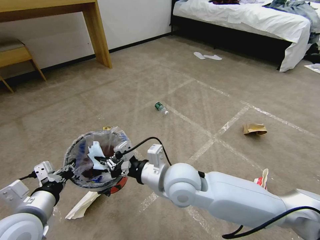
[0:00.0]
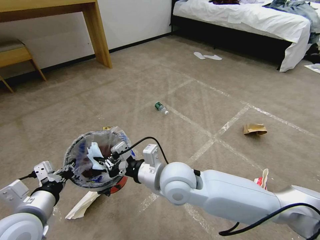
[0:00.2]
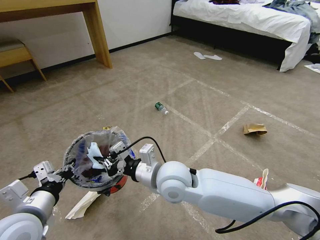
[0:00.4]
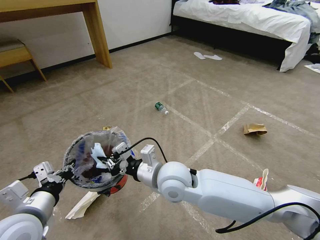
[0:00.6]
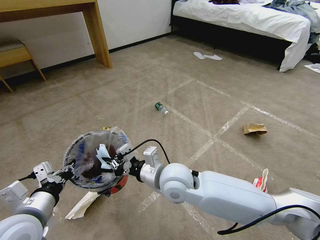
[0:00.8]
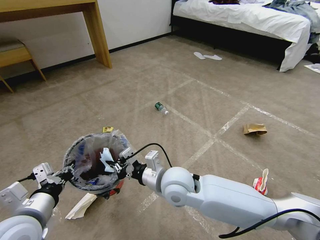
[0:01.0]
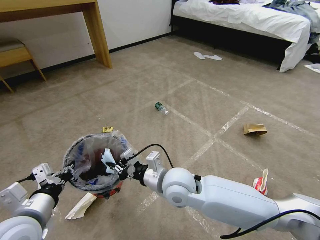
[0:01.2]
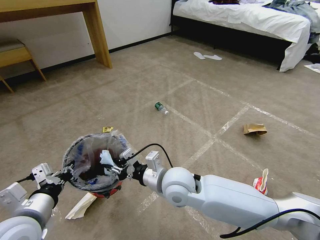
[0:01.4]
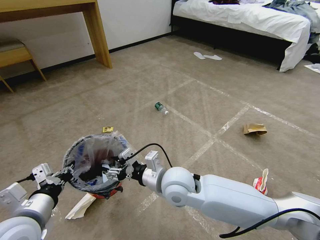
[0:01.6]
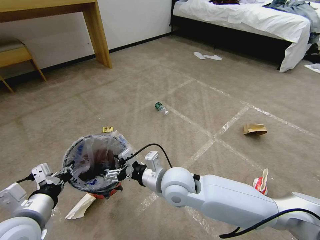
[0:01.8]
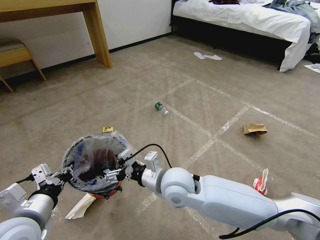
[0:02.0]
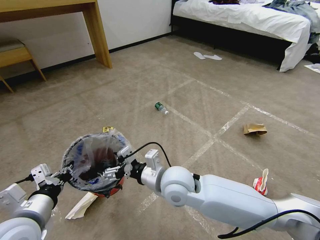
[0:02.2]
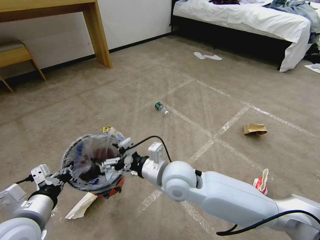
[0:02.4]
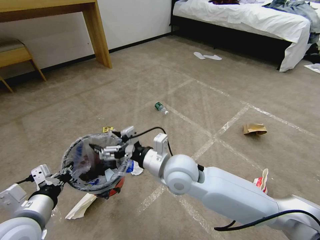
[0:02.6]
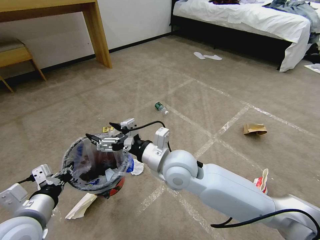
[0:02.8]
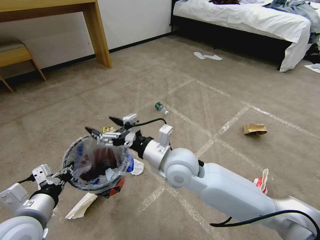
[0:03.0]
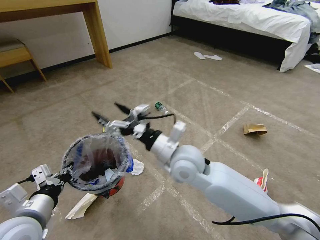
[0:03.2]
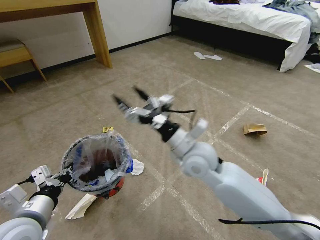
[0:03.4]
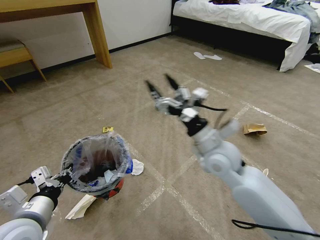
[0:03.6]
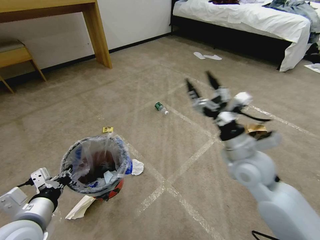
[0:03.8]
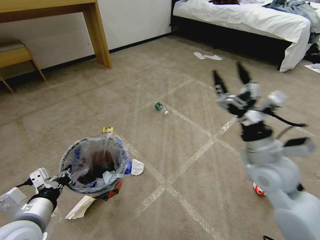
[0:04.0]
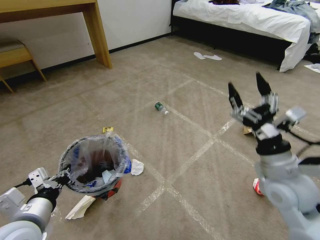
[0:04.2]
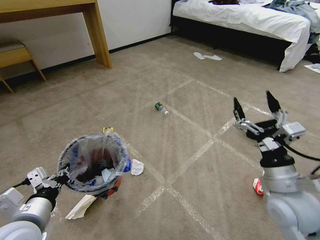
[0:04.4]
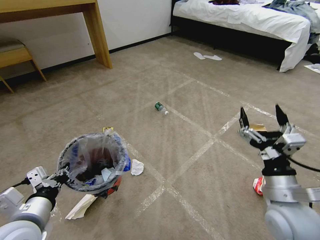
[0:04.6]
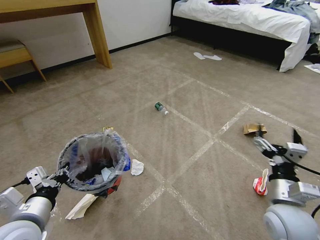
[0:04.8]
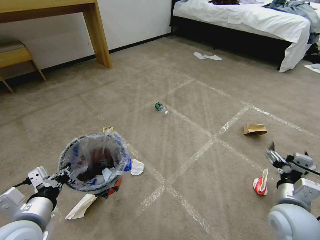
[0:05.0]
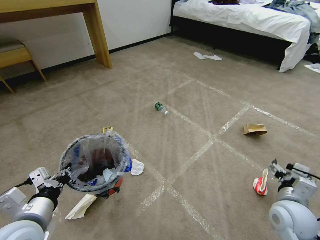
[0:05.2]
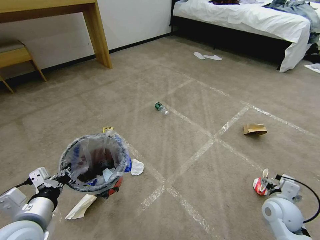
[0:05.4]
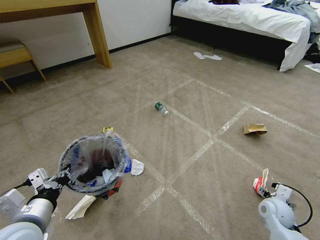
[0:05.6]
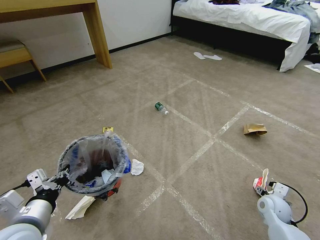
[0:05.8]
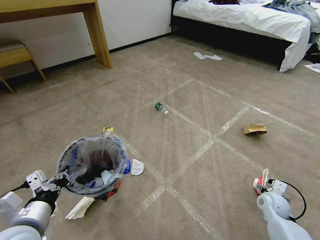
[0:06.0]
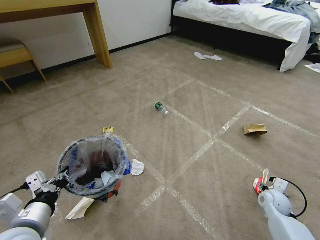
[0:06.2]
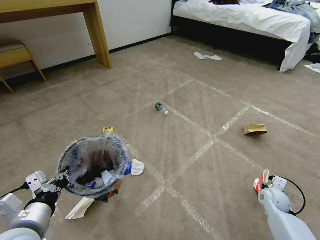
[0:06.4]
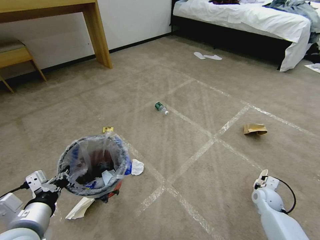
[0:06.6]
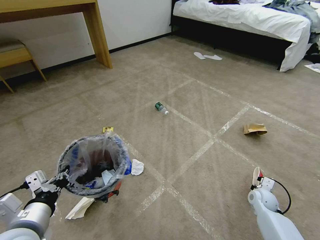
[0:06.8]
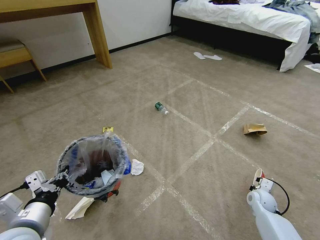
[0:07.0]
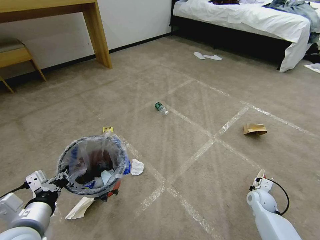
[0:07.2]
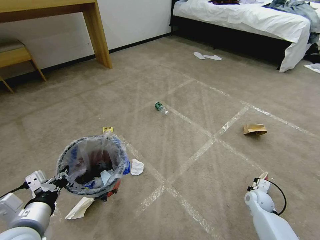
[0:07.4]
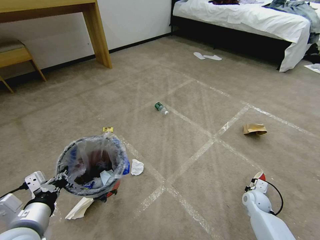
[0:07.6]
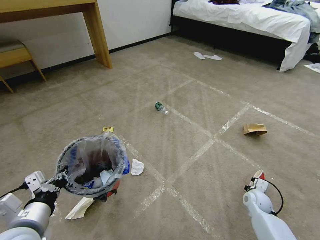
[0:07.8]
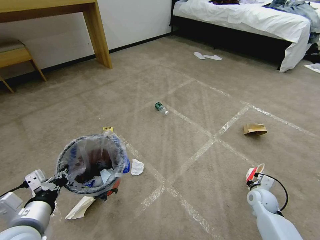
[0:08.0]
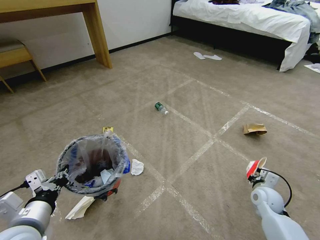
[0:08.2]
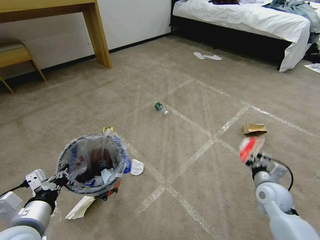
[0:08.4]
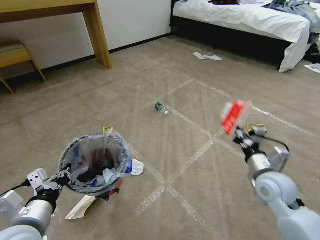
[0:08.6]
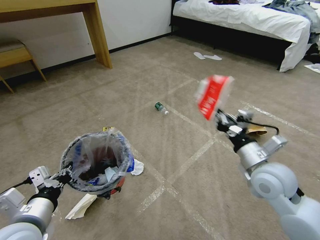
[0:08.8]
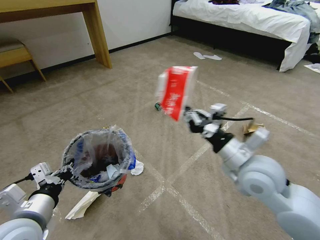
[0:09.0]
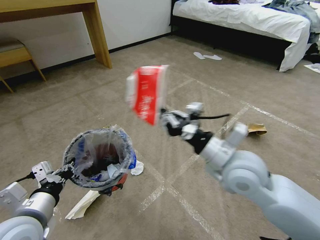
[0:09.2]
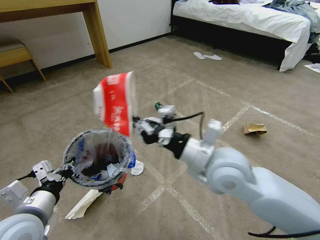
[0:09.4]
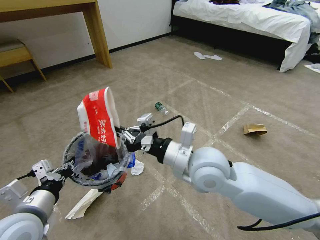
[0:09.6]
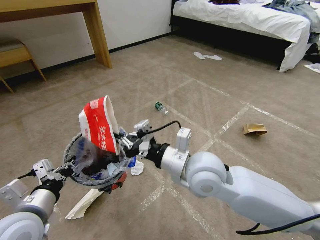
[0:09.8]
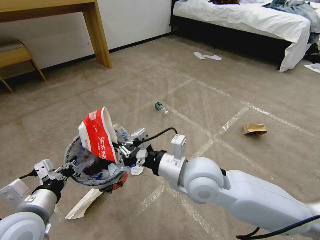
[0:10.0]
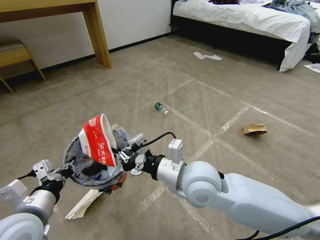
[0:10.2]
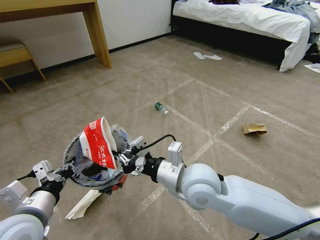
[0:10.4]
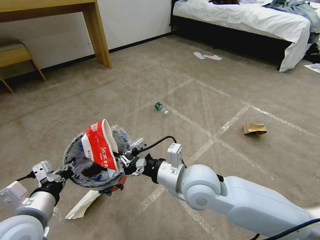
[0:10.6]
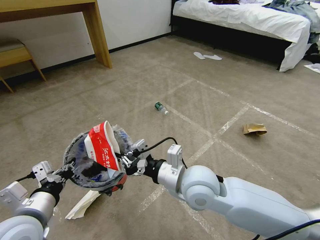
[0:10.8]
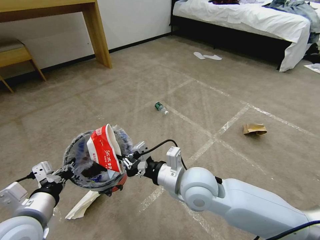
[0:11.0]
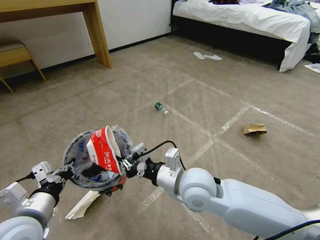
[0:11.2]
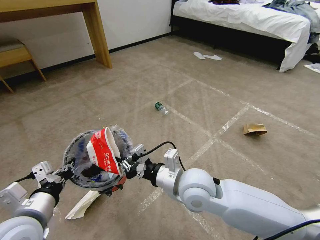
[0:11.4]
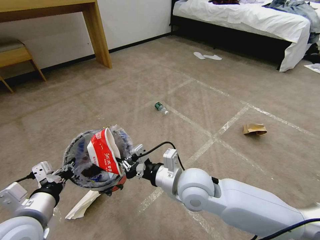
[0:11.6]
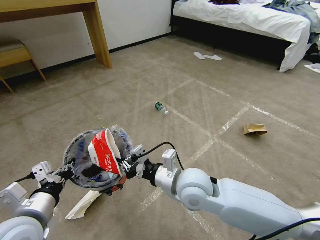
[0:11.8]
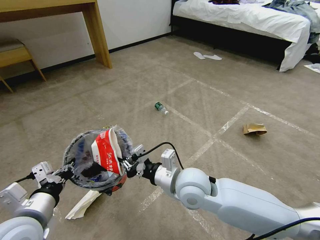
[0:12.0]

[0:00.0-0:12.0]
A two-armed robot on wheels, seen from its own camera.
Task of the whole recording: Pick up the trash bin and place the garbage on the floor into it.
0:00.0 to 0:01.6: The right gripper opens its fingers.
0:01.6 to 0:03.0: The right gripper moves upward, approximately 5 cm, and opens its fingers.
0:03.0 to 0:04.4: The right gripper shifts about 25 cm to the right and backward.
0:04.4 to 0:06.0: The right gripper is displaced downward and to the right by roughly 25 cm.
0:06.0 to 0:07.6: The right gripper is displaced downward by roughly 5 cm, and closes up.
0:07.6 to 0:09.0: The right gripper travels upward and to the left by roughly 35 cm.
0:09.0 to 0:10.4: The right gripper is displaced to the left by roughly 15 cm.
0:10.4 to 0:12.0: The grippers move only a little.

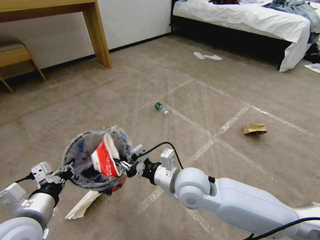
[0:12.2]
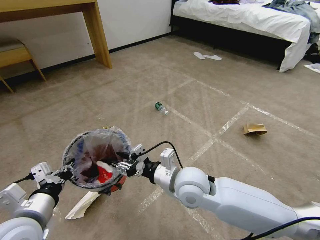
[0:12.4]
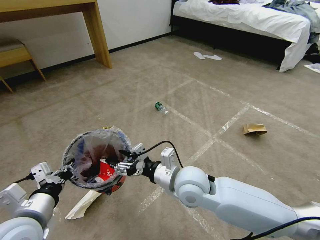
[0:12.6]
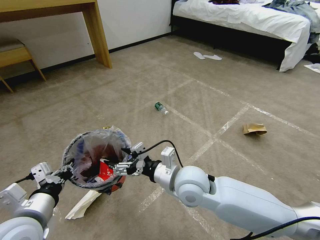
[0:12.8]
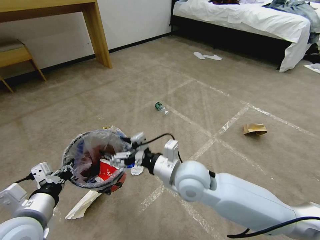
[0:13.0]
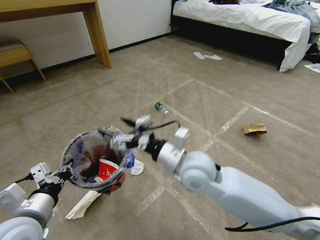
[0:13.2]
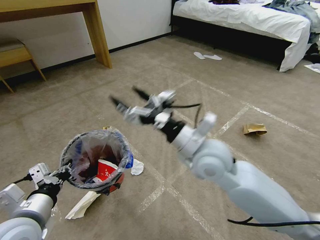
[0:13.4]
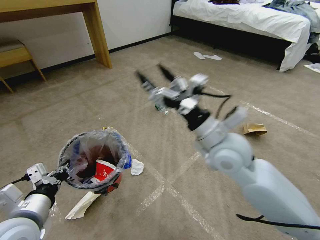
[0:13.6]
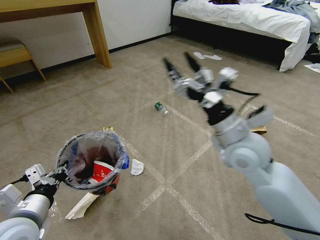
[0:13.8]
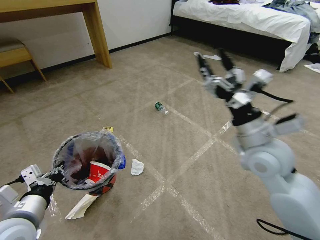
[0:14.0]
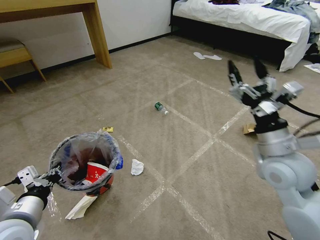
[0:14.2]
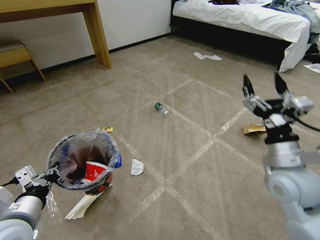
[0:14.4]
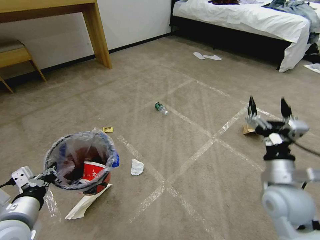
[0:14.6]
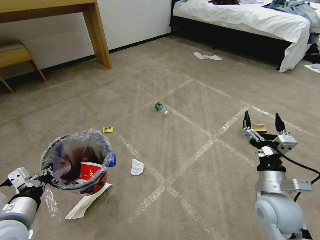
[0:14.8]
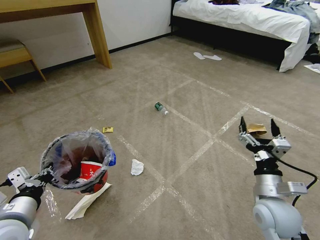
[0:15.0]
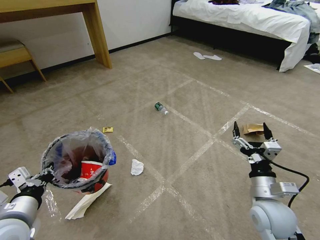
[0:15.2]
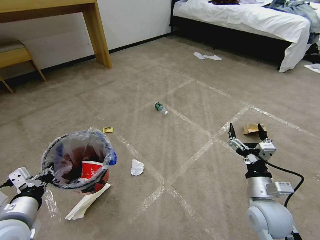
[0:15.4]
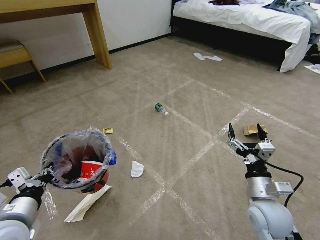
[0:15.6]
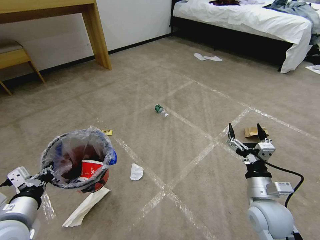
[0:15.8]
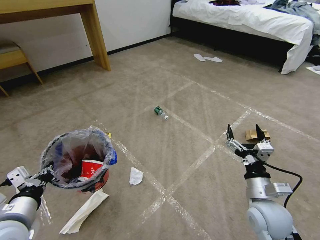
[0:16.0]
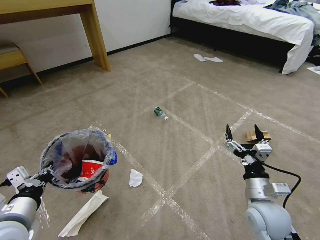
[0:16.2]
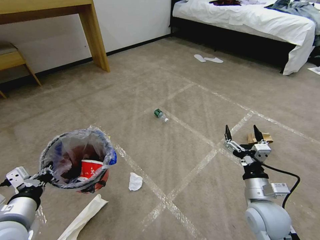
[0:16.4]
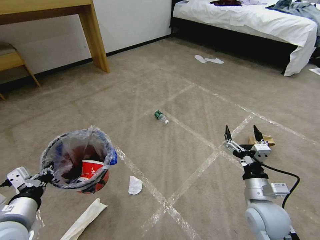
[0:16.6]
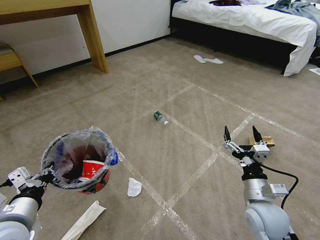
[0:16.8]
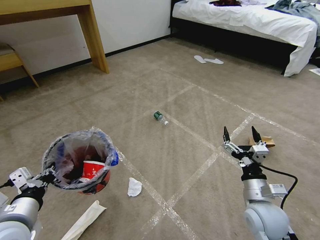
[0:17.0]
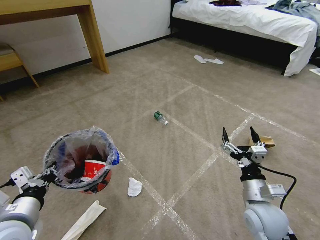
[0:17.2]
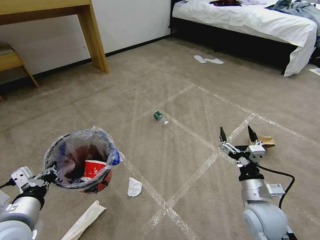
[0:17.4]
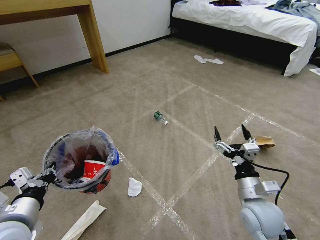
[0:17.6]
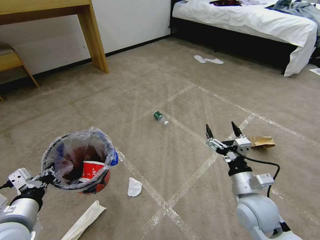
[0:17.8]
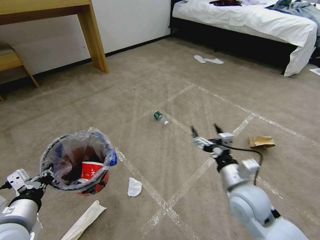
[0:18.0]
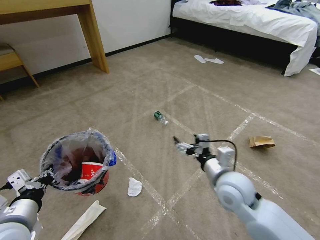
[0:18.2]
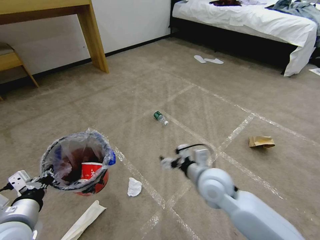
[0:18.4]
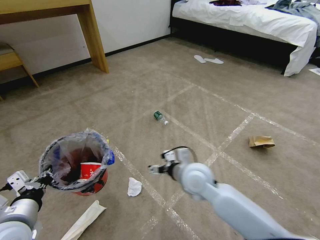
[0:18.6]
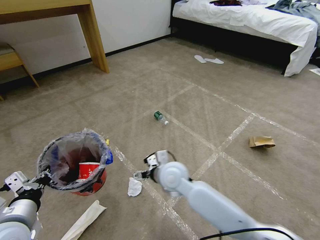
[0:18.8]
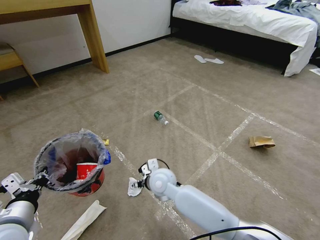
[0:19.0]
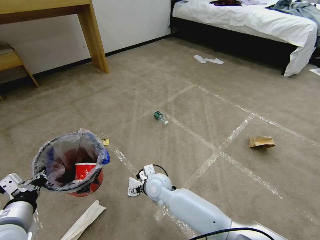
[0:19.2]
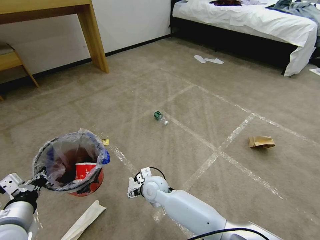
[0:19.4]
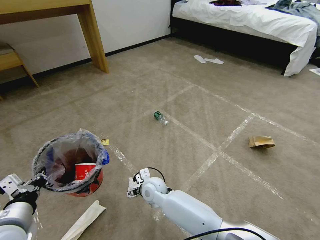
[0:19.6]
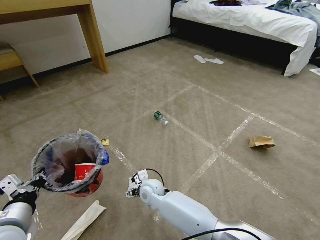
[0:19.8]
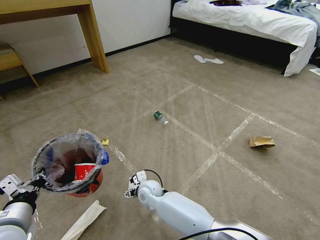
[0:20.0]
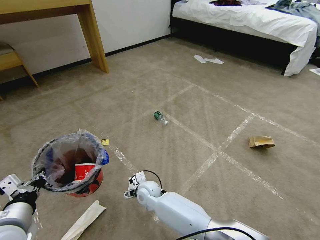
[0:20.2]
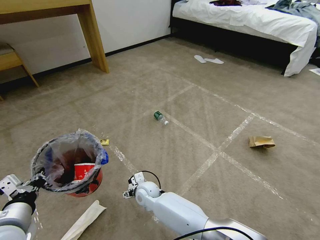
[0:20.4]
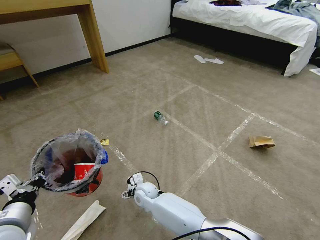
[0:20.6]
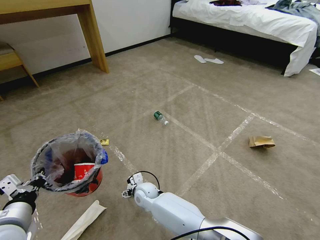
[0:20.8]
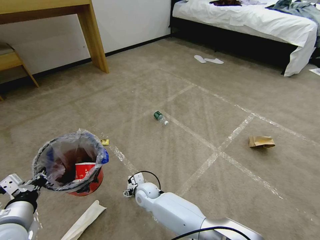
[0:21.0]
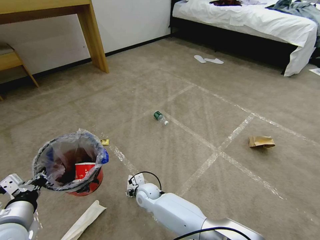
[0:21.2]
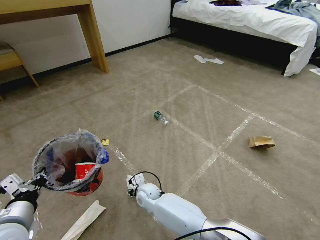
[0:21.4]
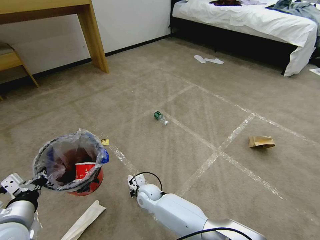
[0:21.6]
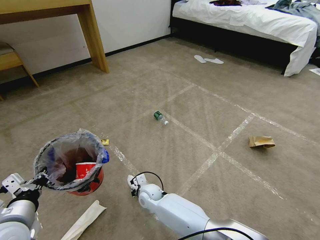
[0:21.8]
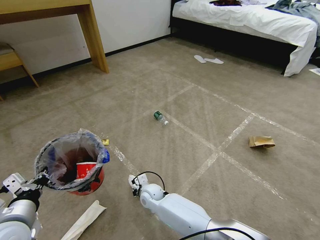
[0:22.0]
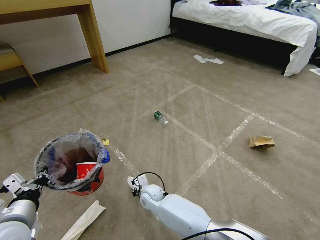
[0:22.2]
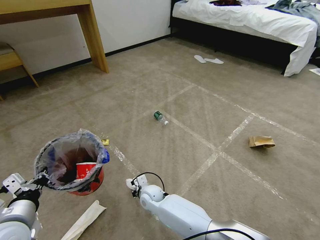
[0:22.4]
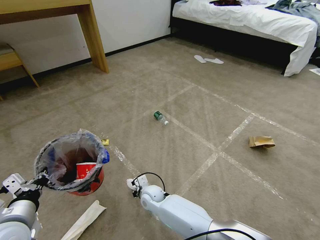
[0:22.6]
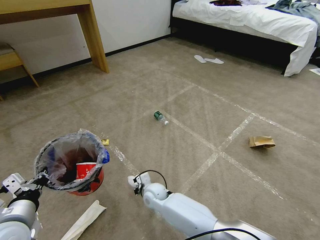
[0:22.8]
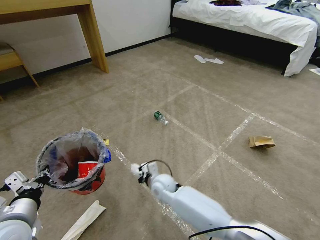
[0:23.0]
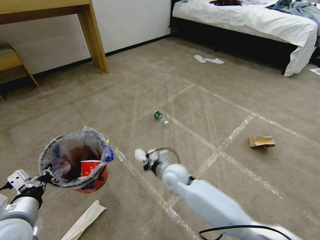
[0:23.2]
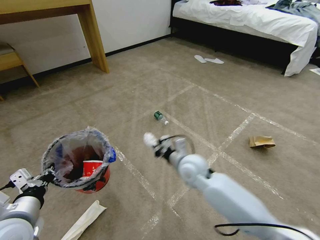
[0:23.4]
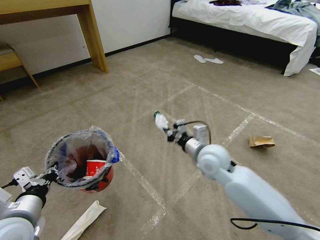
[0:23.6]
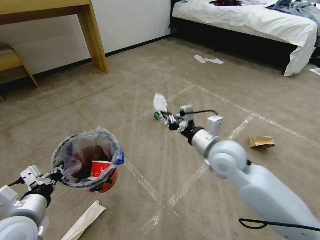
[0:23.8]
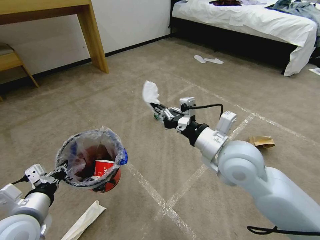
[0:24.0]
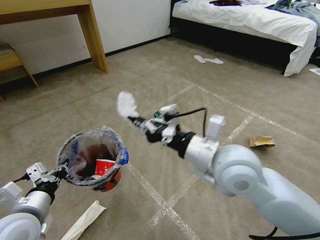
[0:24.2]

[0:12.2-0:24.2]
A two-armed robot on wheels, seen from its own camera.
Task of the whole recording: Pick up the trash bin and place the garbage on the floor into it.
0:12.2 to 0:13.8: The right gripper heads to the right and upward, covering some 15 cm, and opens its fingers.
0:13.8 to 0:15.2: The right gripper moves downward, backward and to the right, roughly 20 cm.
0:15.2 to 0:16.6: There are only small adjustments of the grippers.
0:16.6 to 0:18.2: The right gripper travels to the left, forward and upward by some 10 cm.
0:18.2 to 0:19.8: The right gripper shifts approximately 30 cm to the left and downward.
0:19.8 to 0:21.2: The right gripper travels downward by some 5 cm.
0:21.2 to 0:22.6: The right gripper closes up.
0:22.6 to 0:24.2: The right gripper shifts some 40 cm upward and to the right.
